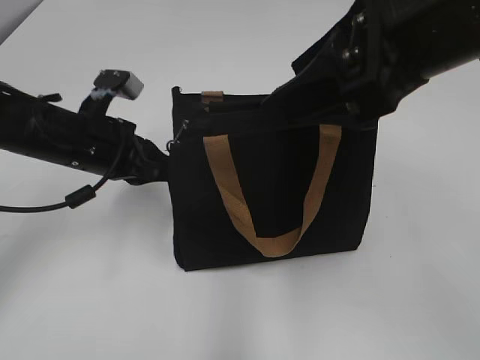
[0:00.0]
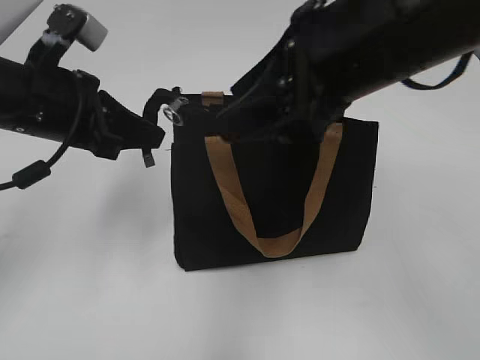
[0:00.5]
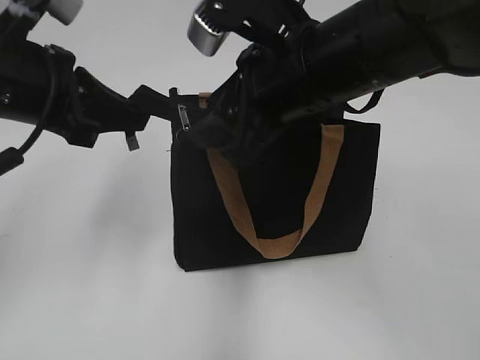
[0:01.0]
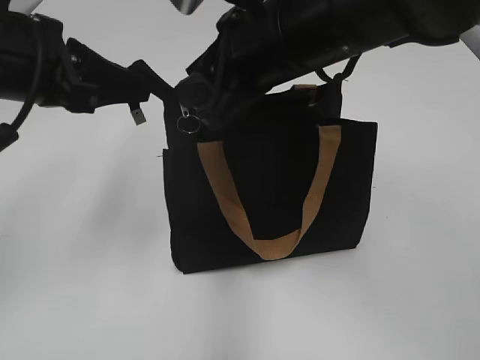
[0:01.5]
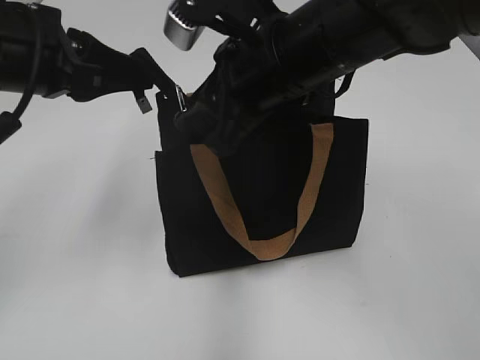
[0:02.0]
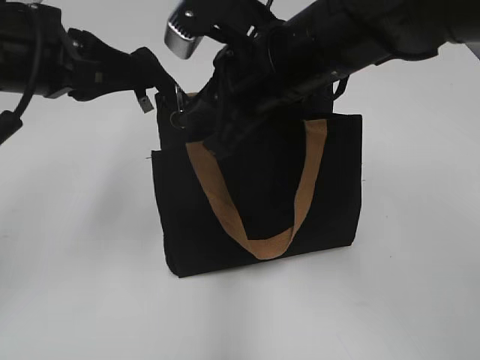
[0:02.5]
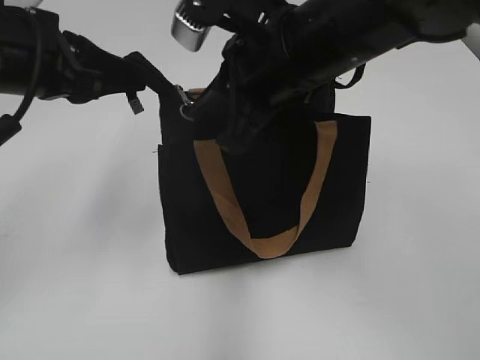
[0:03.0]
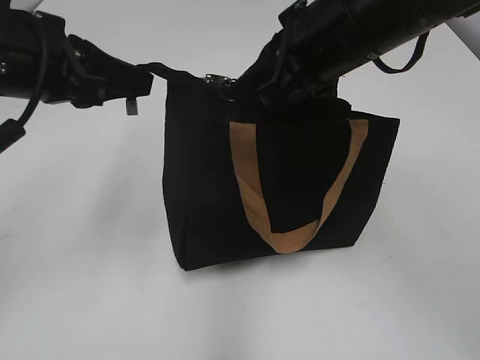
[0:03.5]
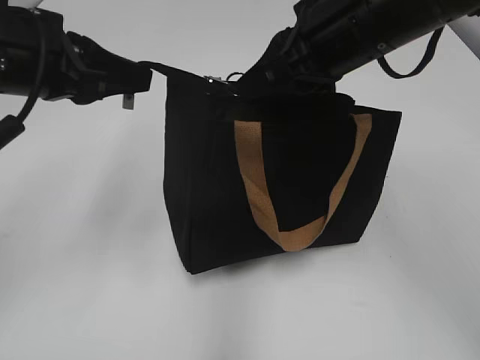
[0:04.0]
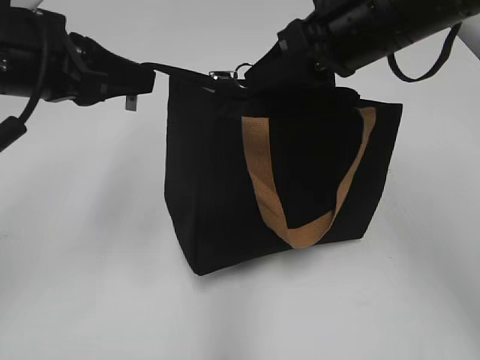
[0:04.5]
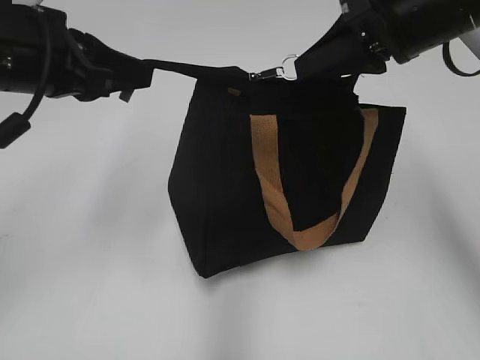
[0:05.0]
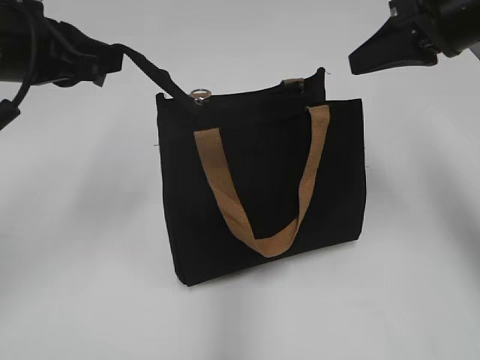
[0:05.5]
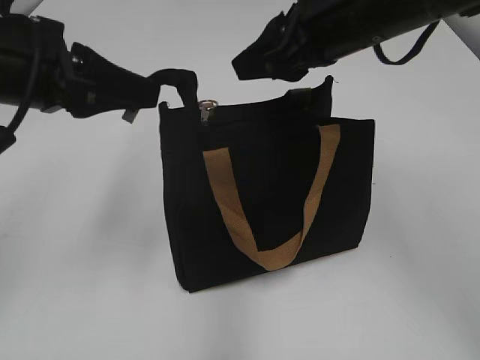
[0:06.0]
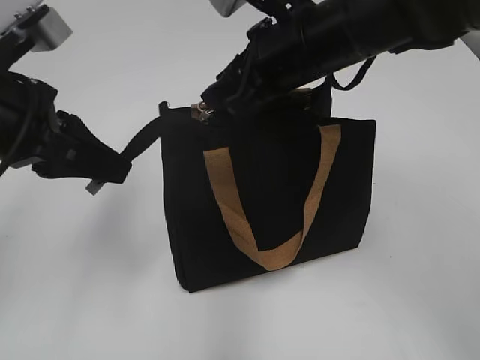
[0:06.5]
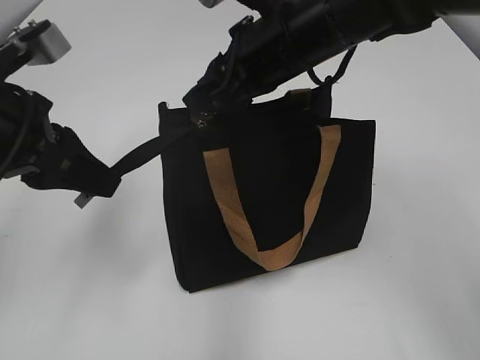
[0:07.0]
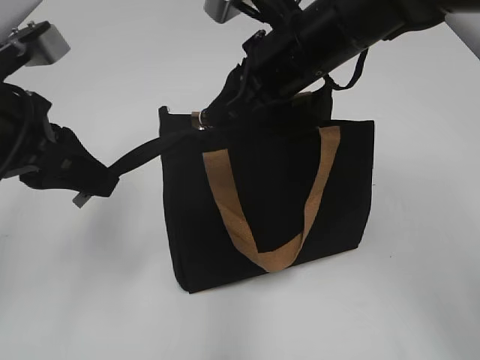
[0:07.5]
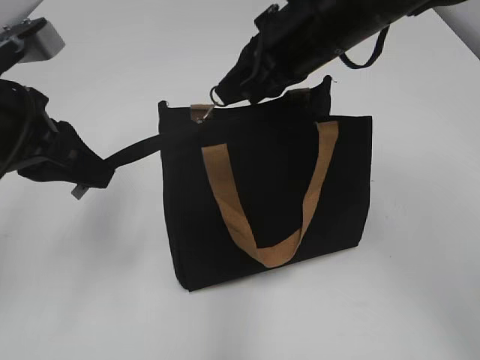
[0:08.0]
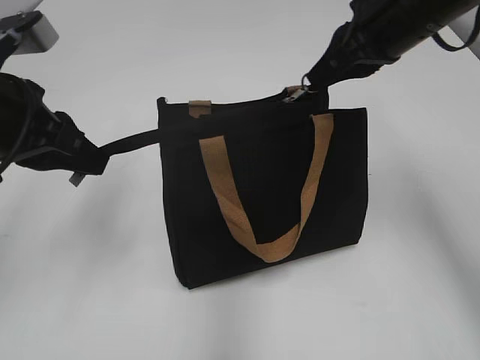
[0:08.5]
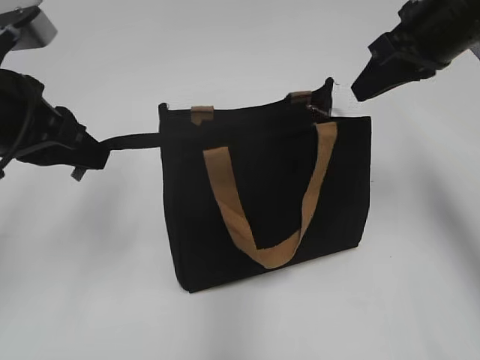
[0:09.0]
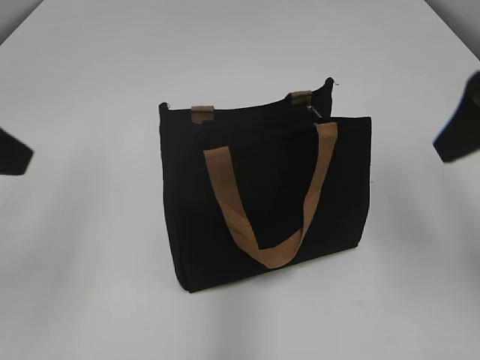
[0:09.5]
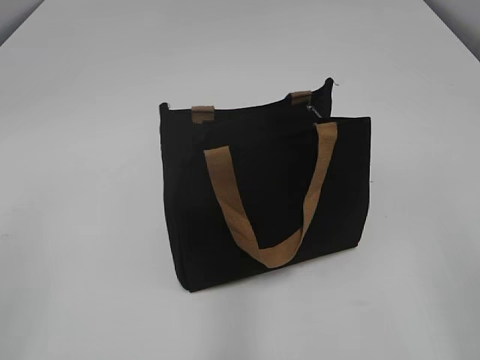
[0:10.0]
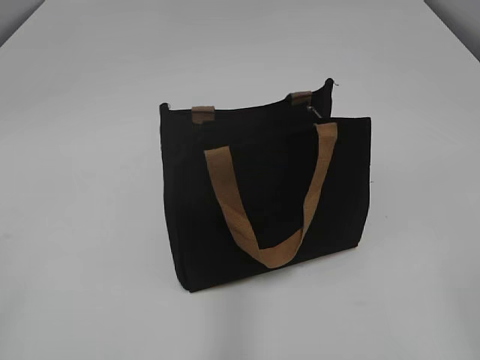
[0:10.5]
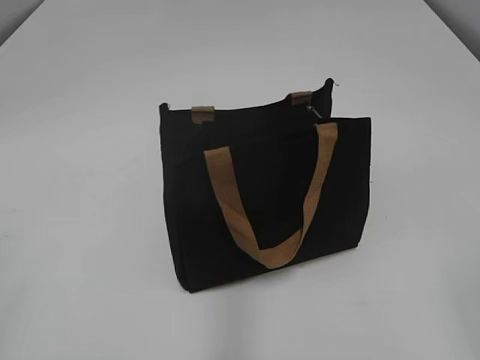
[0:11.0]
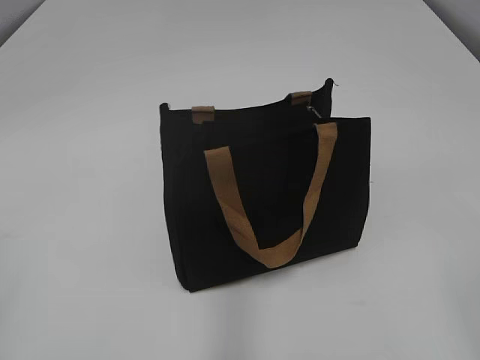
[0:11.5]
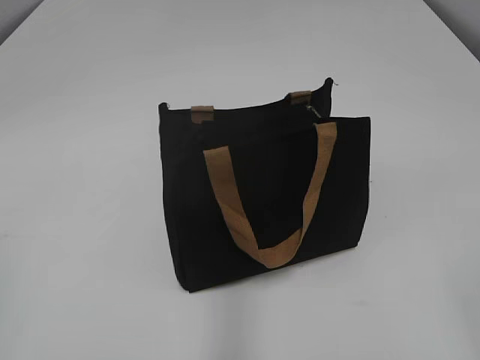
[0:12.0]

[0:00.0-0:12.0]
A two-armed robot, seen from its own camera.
Step, 0:00.0 to 0:08.5: Zip up the bag with your right hand.
0:00.0 to 0:02.0: The left gripper heads upward and backward, covering approximately 15 cm; the right gripper travels to the left, downward and forward by about 15 cm, and closes up.
0:02.0 to 0:04.0: The right gripper shifts some 5 cm to the right, and closes its fingers.
0:04.0 to 0:06.0: The right gripper reaches roughly 10 cm to the right, then returns, and opens its fingers.
0:06.0 to 0:08.0: The right gripper closes its fingers.
0:08.0 to 0:10.0: The right gripper heads backward and to the right, covering approximately 30 cm, and opens its fingers. Meanwhile the left gripper is displaced backward and to the left by some 20 cm, and opens its fingers.

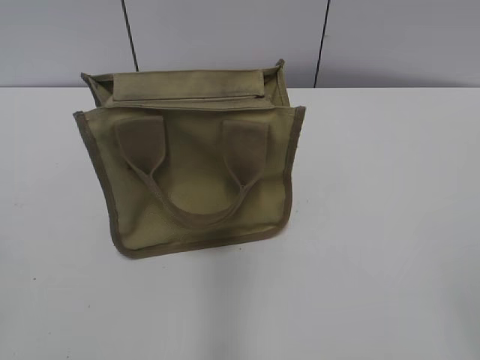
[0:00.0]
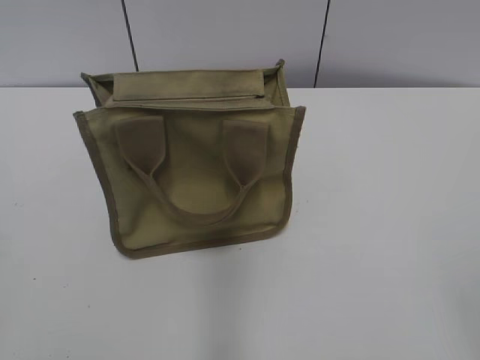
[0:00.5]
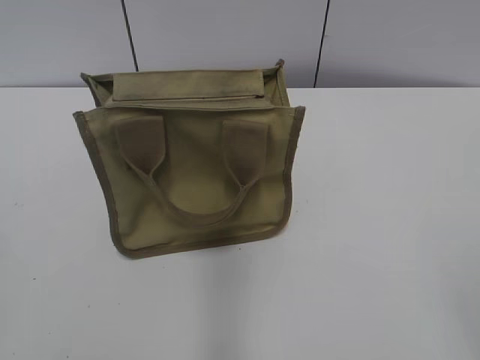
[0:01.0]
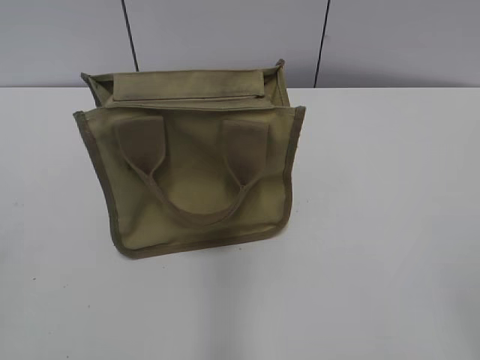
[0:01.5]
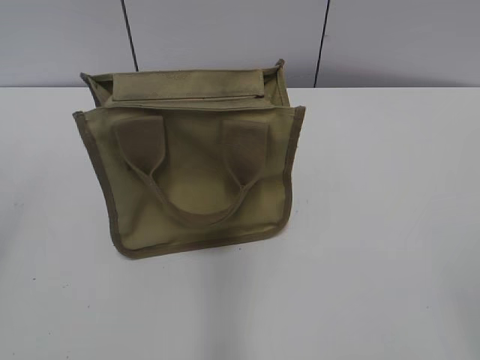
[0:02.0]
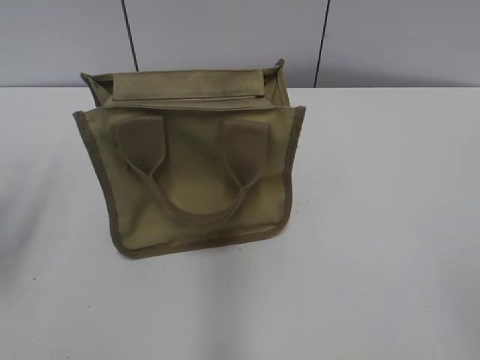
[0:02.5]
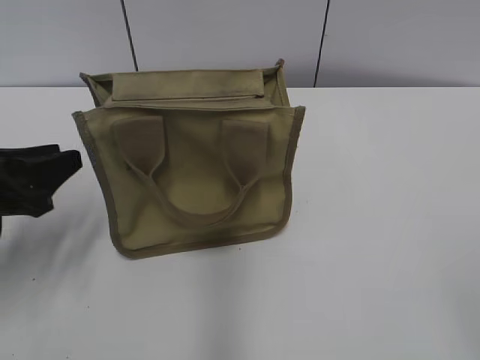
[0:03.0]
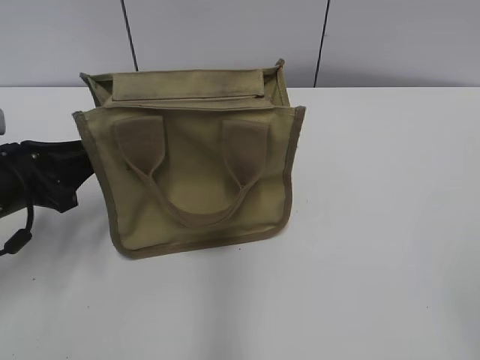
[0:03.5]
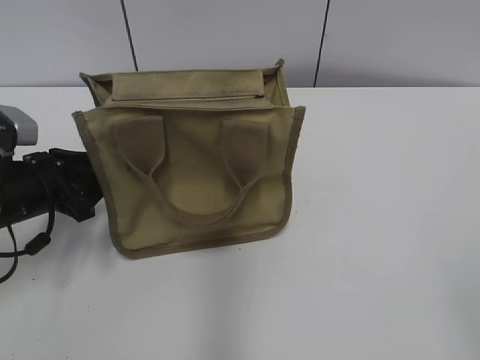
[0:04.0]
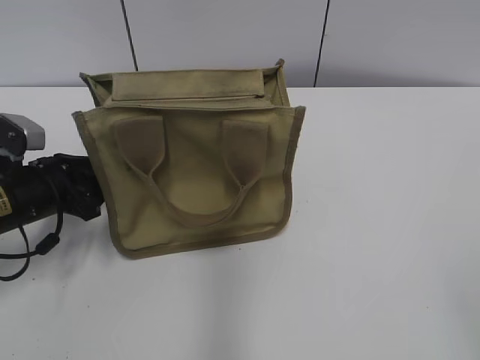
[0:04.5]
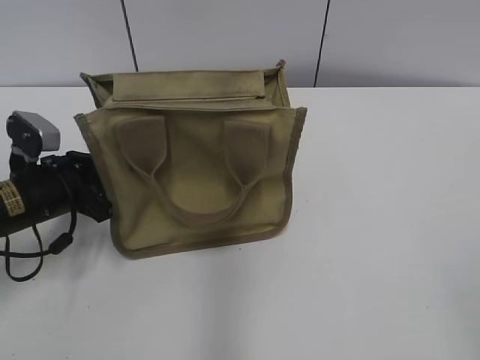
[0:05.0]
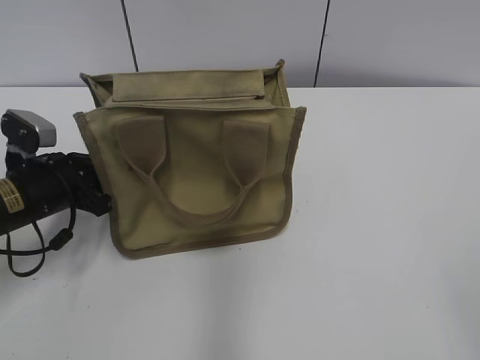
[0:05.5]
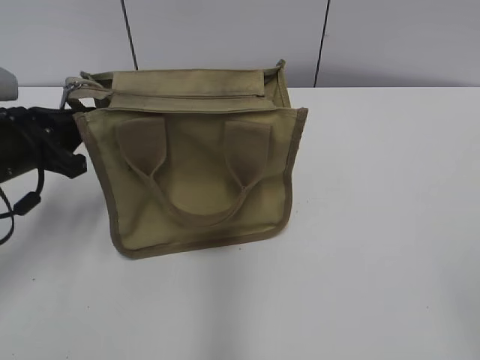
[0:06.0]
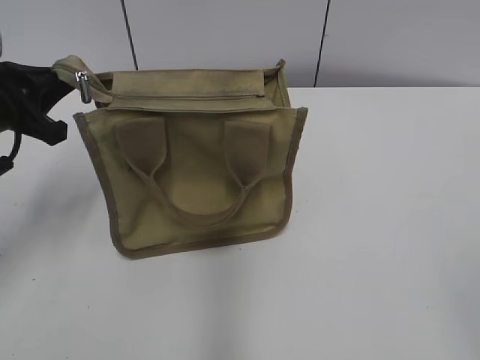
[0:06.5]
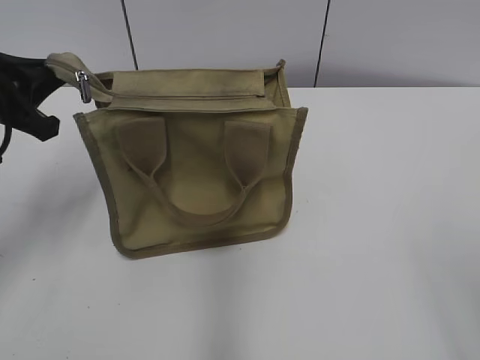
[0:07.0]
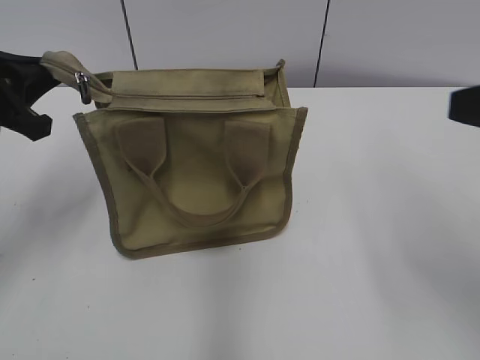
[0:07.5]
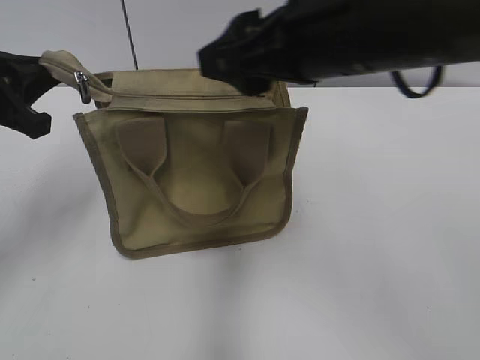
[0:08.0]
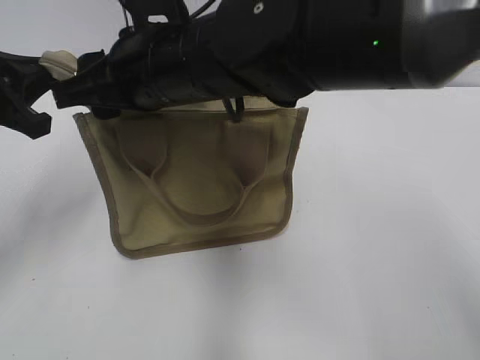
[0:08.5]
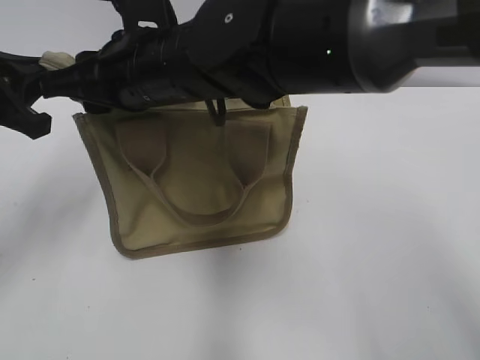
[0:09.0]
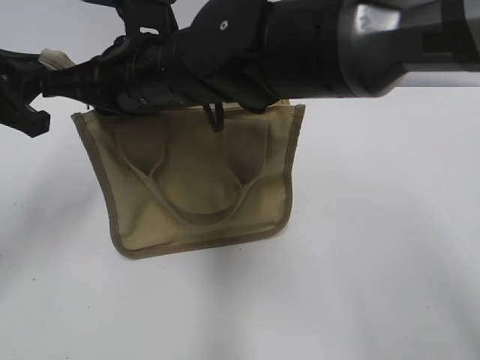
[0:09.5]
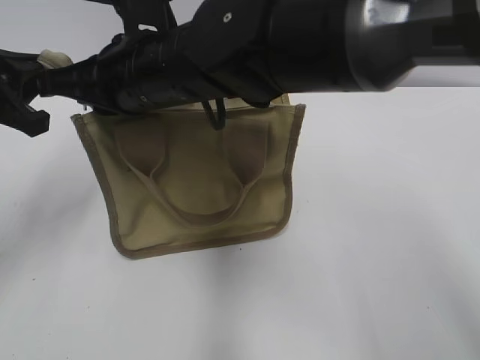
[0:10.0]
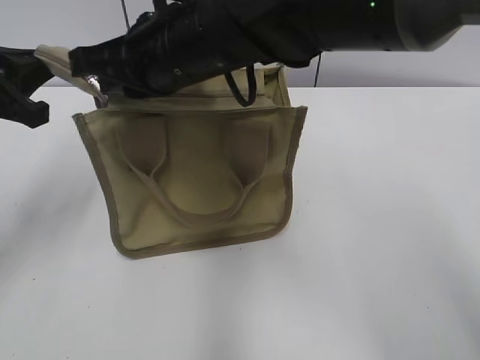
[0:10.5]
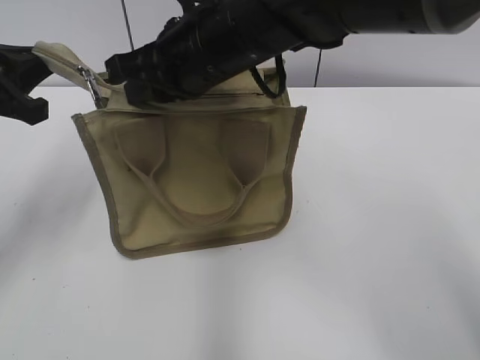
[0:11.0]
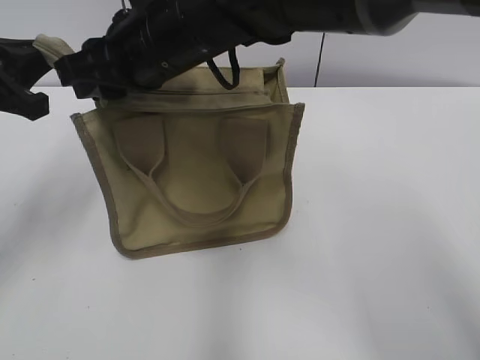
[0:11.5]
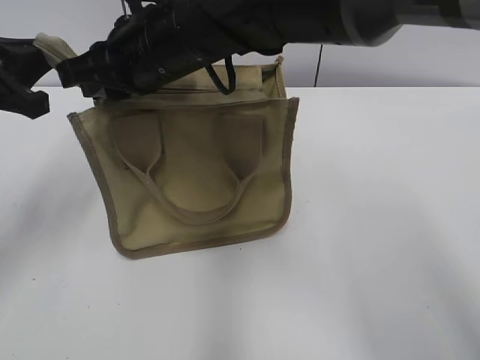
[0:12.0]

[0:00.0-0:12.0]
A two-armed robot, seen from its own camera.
0:02.0 to 0:04.0: The left gripper heads downward and forward, covering about 30 cm.
0:04.0 to 0:06.0: The left gripper closes up.
0:06.0 to 0:08.0: The left gripper is displaced upward by roughly 10 cm, while the right gripper shifts approximately 30 cm forward and to the left.
0:08.0 to 0:10.0: The right gripper is displaced to the left and downward by approximately 15 cm, and closes its fingers.
0:10.0 to 0:12.0: The grippers stay close to where they were, moving slightly.

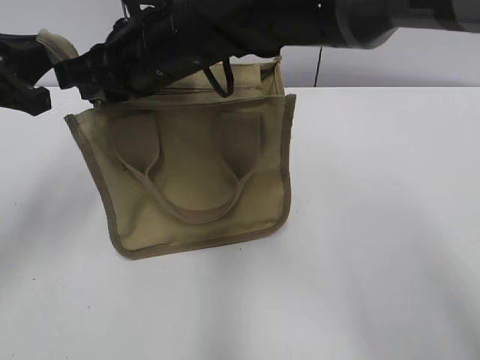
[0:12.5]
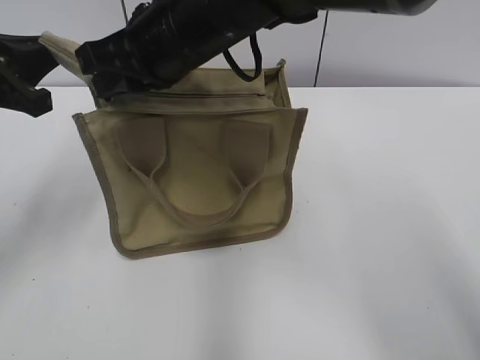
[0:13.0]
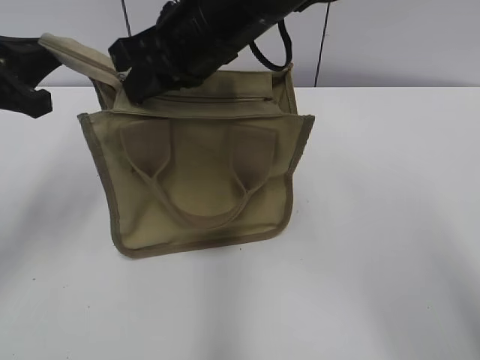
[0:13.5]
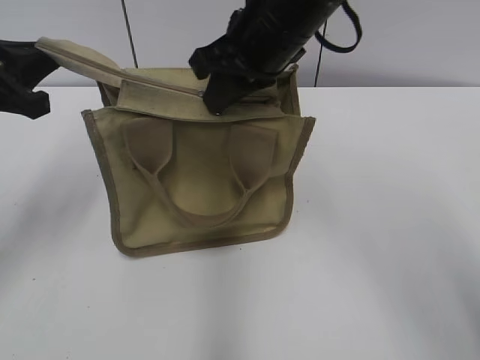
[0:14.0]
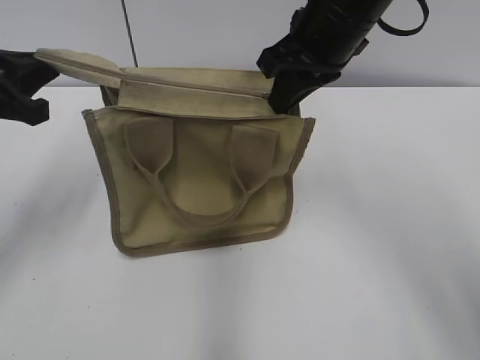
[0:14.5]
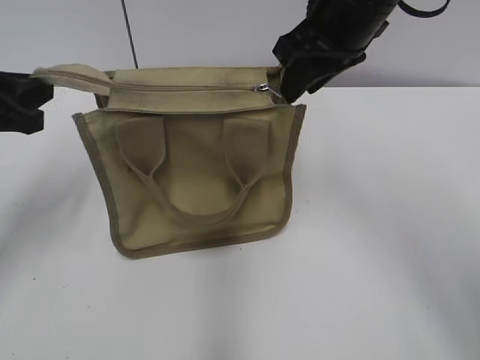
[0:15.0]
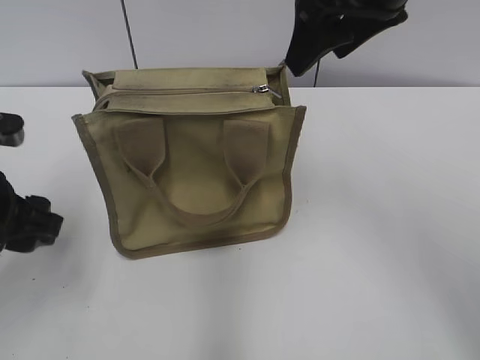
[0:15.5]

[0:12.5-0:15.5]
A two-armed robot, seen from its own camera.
Step, 0:12.5 to 0:15.0: Zip up the bag with your right hand.
0:12.5 to 0:14.0: The right gripper moves to the right, approximately 10 cm.
0:14.0 to 0:15.5: The right gripper heads to the right and upward, covering roughly 10 cm, and opens its fingers, while the left gripper shifts approximately 5 cm downward, and opens up.
